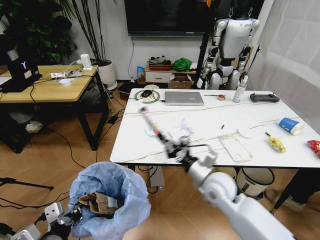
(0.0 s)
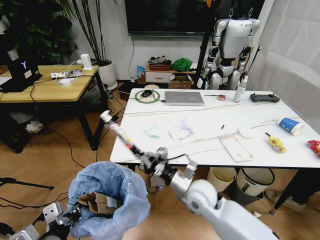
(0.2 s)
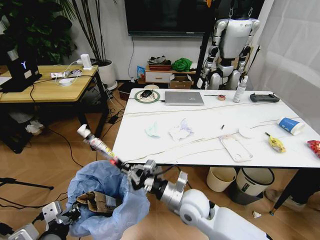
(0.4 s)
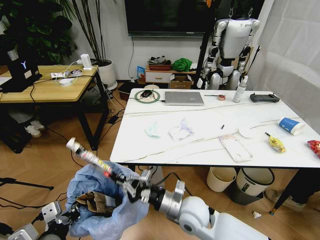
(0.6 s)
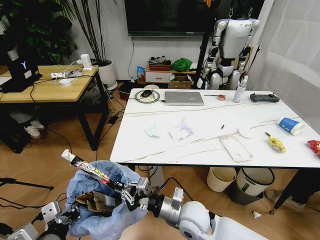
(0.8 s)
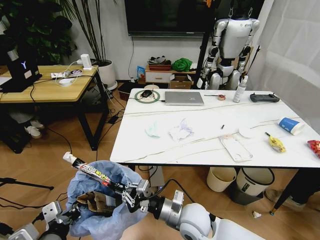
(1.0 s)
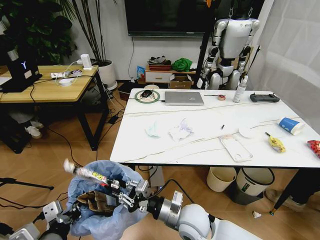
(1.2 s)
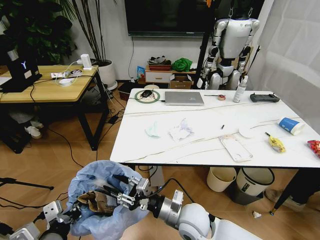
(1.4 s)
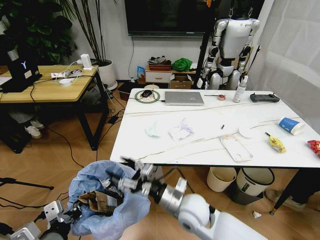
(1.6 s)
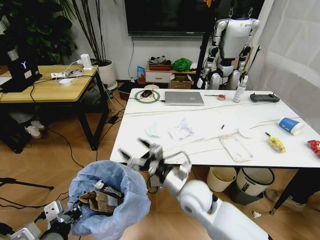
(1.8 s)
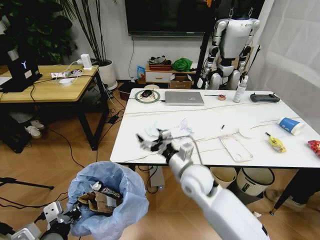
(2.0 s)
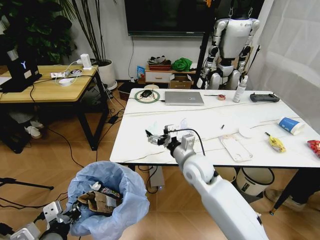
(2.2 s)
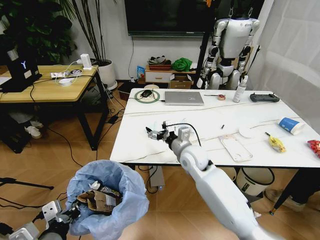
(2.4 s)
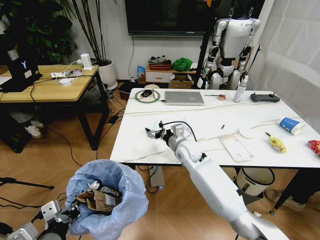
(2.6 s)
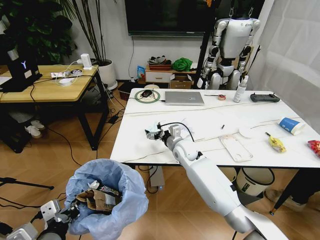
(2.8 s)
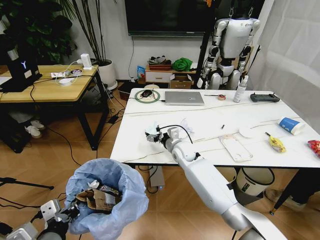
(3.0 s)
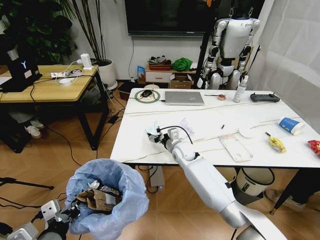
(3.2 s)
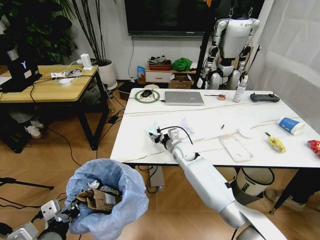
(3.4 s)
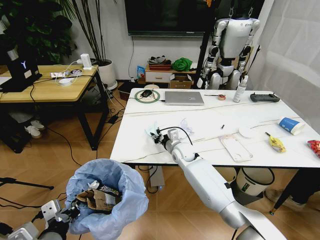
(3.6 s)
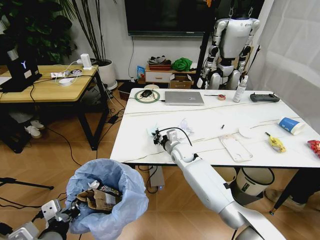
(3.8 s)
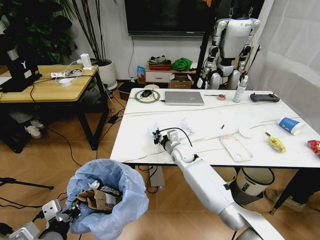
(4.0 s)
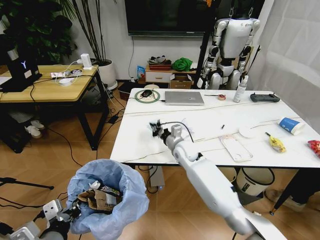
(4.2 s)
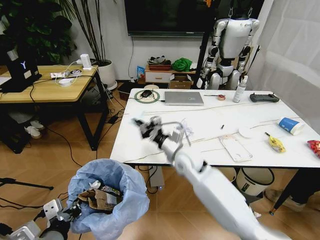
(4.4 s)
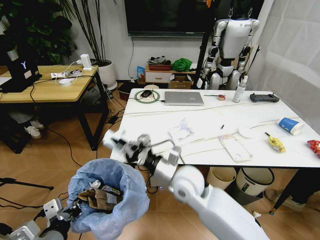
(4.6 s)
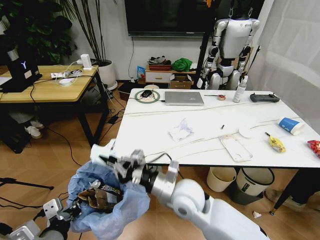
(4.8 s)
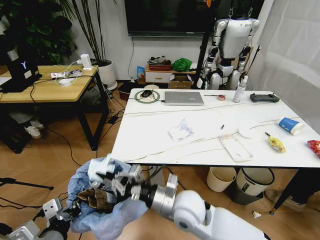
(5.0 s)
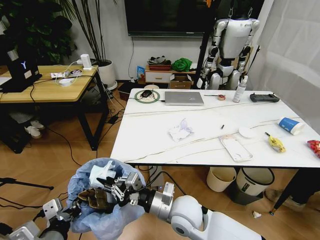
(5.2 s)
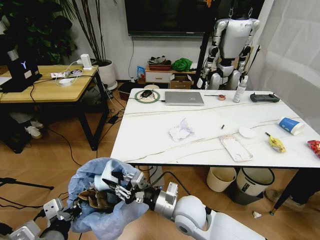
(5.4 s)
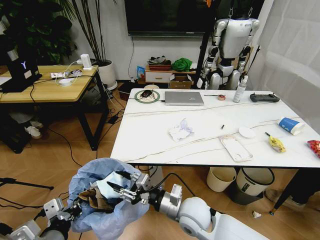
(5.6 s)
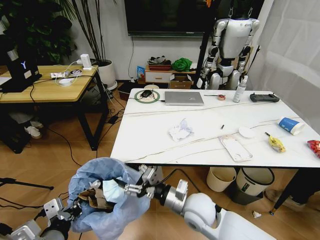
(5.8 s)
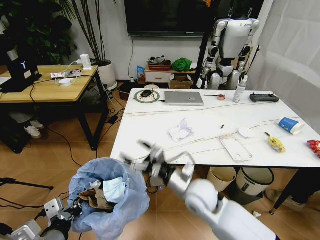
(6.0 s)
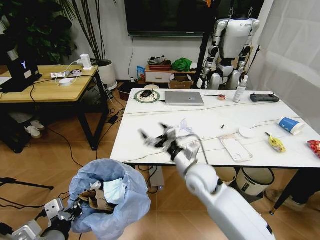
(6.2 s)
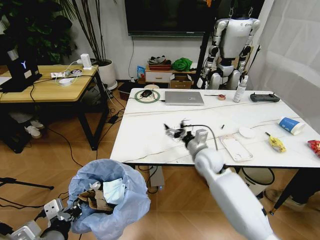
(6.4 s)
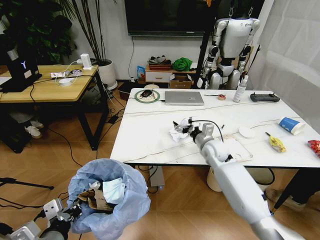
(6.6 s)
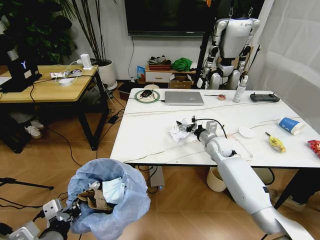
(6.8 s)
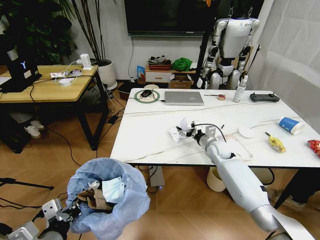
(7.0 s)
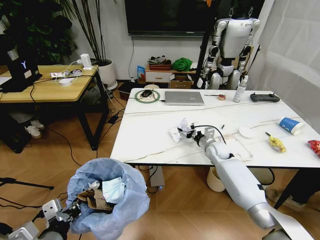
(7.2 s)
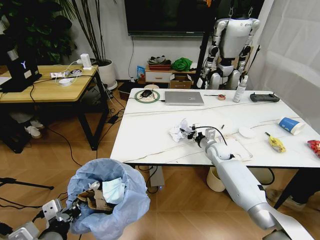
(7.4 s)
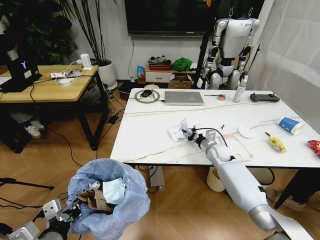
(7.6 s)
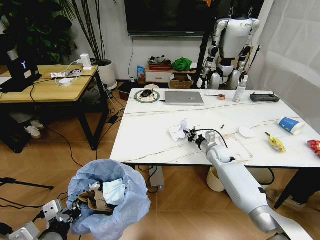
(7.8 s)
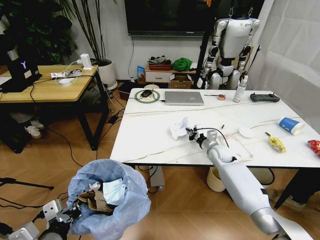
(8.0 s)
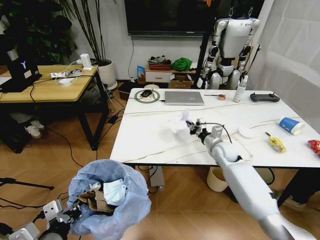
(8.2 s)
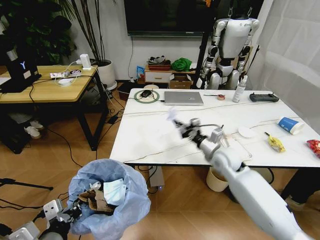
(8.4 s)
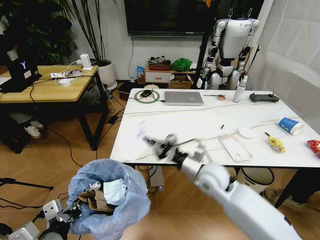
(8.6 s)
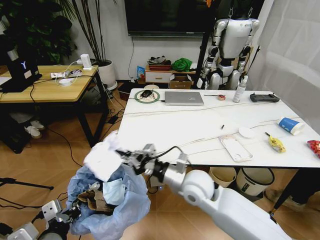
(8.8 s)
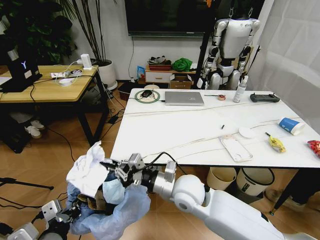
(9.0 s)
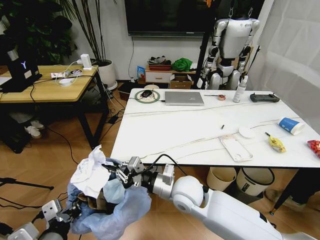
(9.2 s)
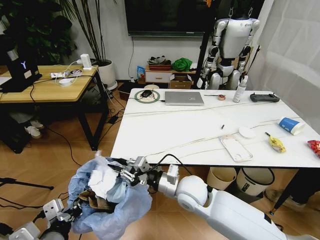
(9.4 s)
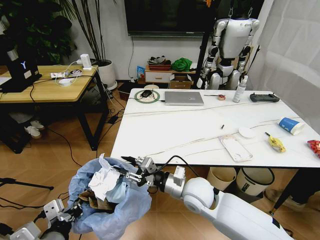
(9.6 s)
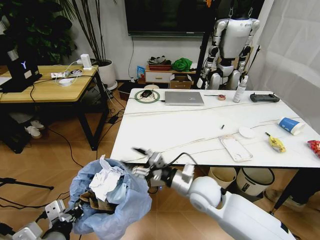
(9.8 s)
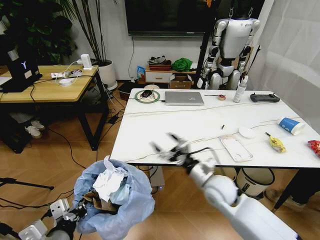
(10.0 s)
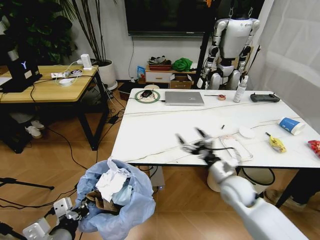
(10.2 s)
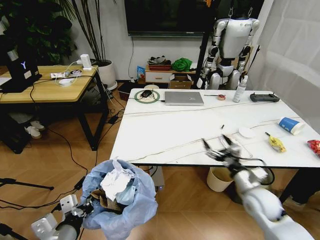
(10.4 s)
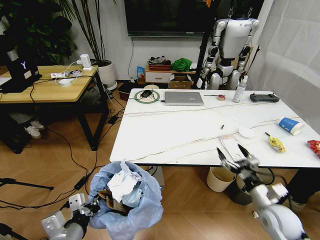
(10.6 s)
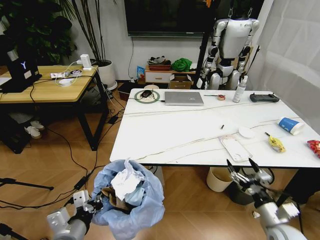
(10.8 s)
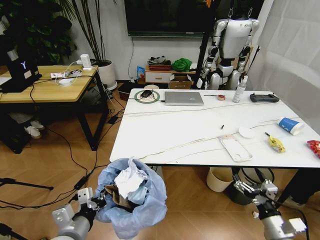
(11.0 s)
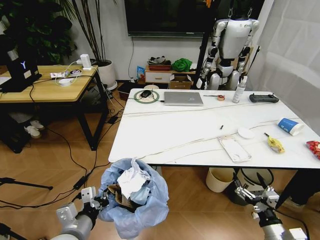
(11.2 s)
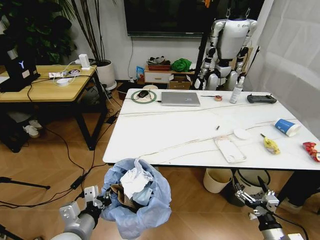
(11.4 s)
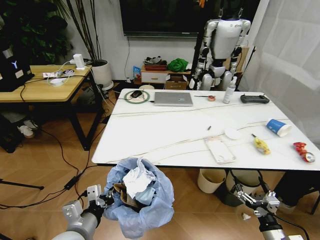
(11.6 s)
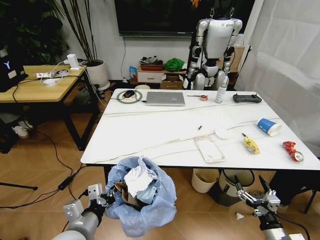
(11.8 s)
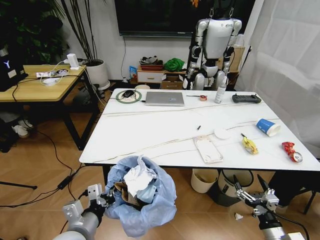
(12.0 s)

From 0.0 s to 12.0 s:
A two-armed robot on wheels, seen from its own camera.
Task of the whole recording: Pick up the trash bin and place the trash from the table into it.
From 0.0 s to 1.6 s: The right gripper moves to the left and backward, some 10 cm, and opens up.
From 1.6 s to 3.0 s: The right gripper travels forward by some 25 cm.
From 3.0 s to 4.4 s: The right gripper shifts some 10 cm backward and upward, and closes up.
From 4.4 s to 6.0 s: The right gripper moves backward, some 10 cm, and opens its fingers.
From 6.0 s to 7.6 s: The right gripper goes approximately 30 cm forward, to the right and downward, and closes its fingers.
From 7.6 s to 9.0 s: The right gripper shifts approximately 30 cm backward, to the left and upward, and closes its fingers.
From 9.0 s to 10.4 s: The right gripper moves to the right, about 25 cm, and opens up.
From 10.4 s to 12.0 s: The right gripper shifts roughly 20 cm backward and downward. Meanwhile the left gripper moves some 5 cm.

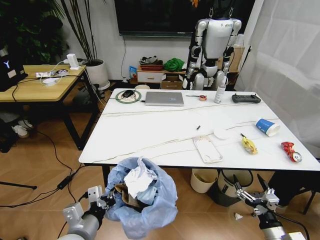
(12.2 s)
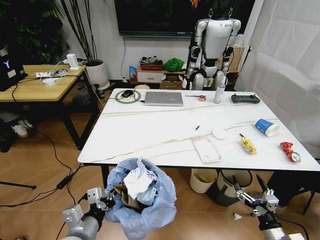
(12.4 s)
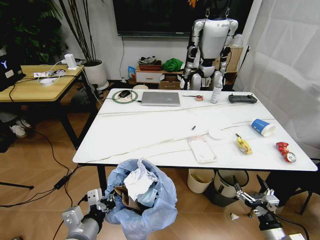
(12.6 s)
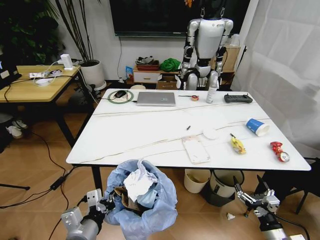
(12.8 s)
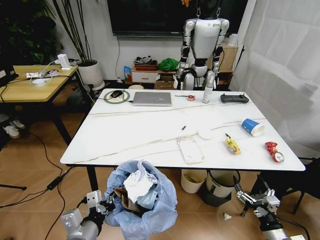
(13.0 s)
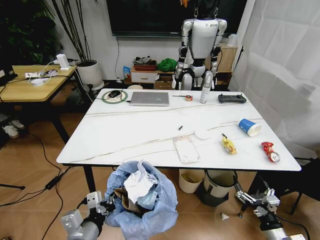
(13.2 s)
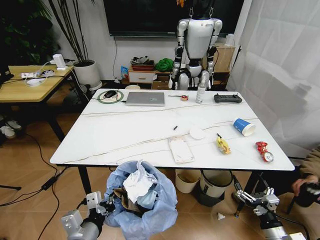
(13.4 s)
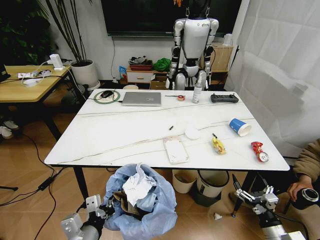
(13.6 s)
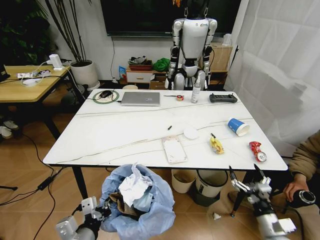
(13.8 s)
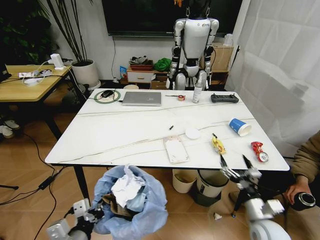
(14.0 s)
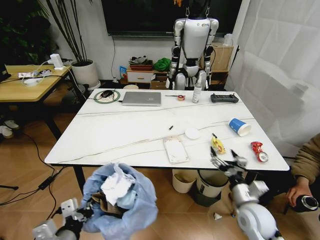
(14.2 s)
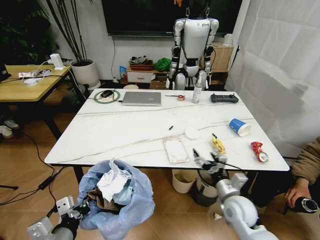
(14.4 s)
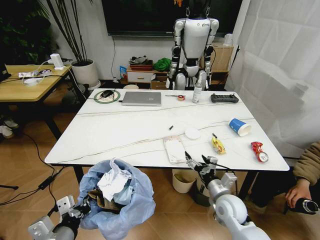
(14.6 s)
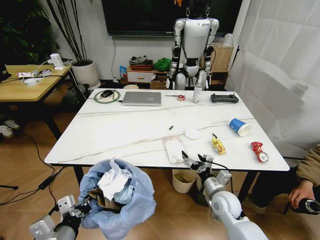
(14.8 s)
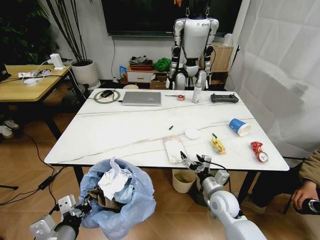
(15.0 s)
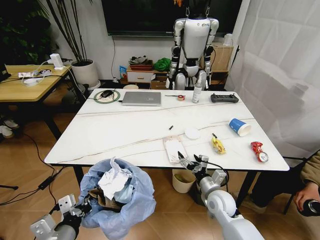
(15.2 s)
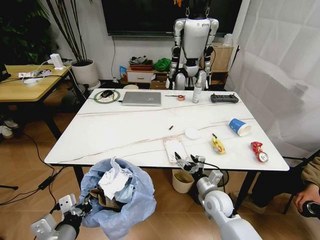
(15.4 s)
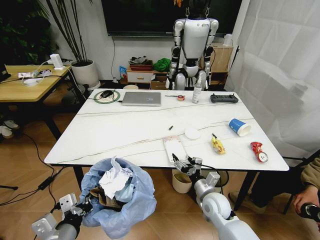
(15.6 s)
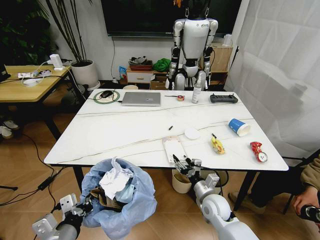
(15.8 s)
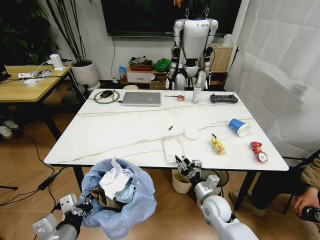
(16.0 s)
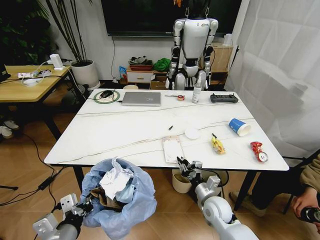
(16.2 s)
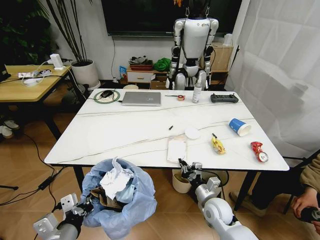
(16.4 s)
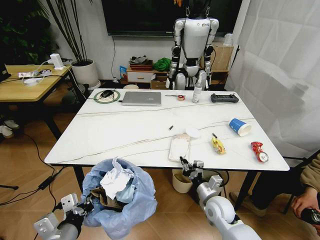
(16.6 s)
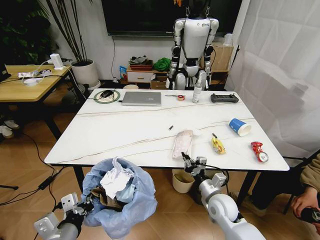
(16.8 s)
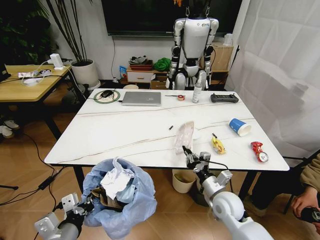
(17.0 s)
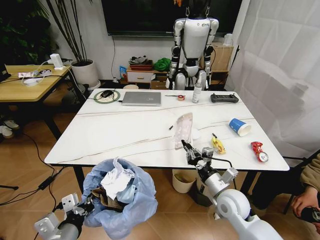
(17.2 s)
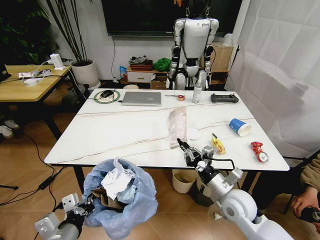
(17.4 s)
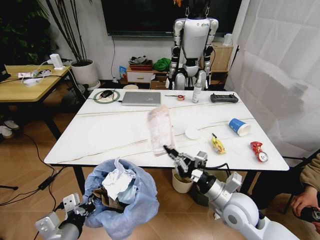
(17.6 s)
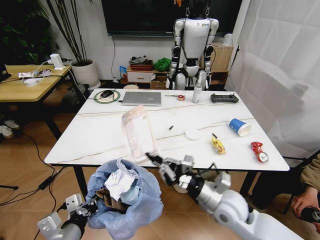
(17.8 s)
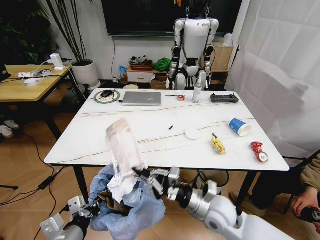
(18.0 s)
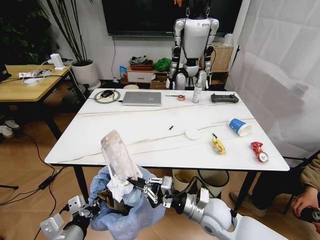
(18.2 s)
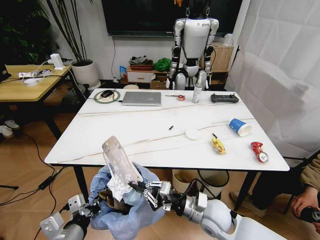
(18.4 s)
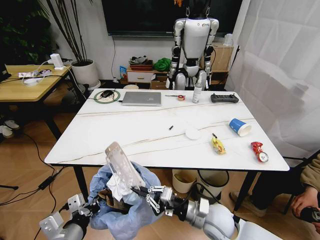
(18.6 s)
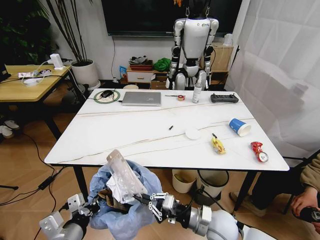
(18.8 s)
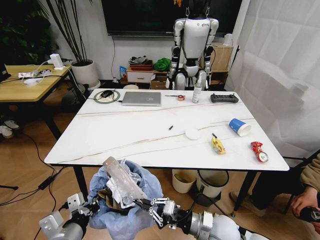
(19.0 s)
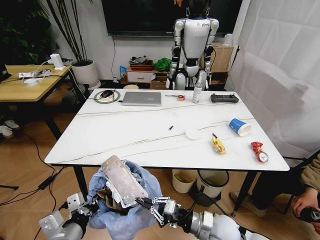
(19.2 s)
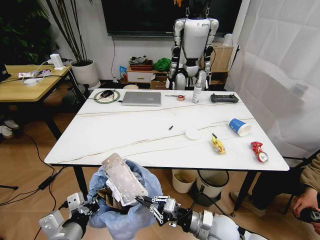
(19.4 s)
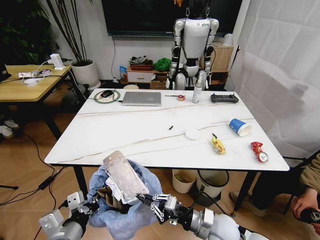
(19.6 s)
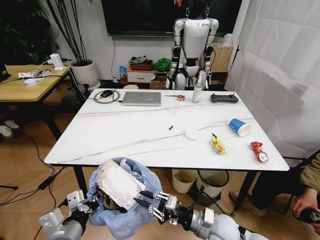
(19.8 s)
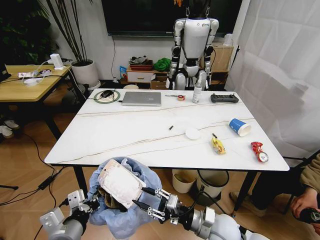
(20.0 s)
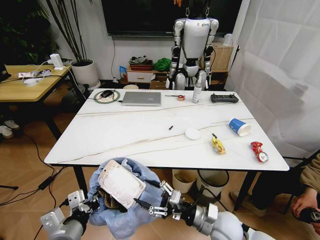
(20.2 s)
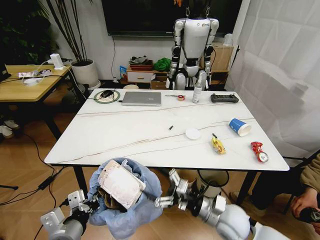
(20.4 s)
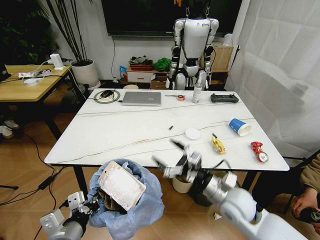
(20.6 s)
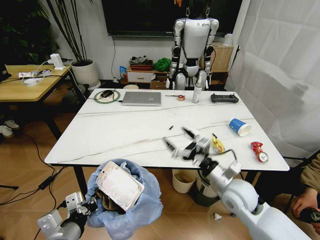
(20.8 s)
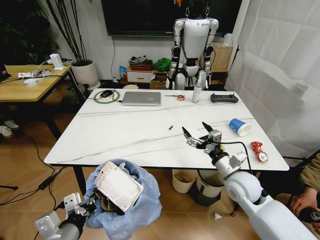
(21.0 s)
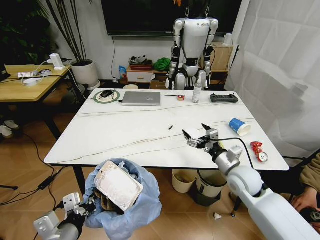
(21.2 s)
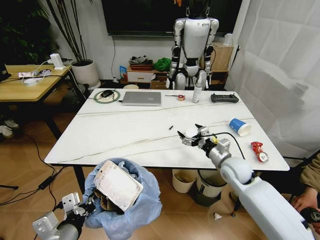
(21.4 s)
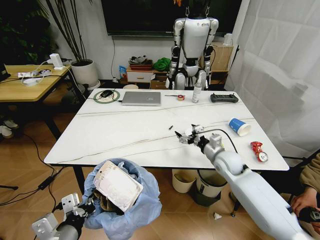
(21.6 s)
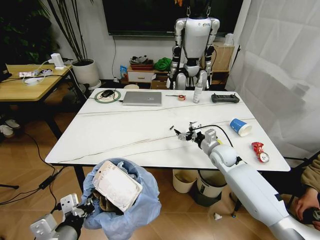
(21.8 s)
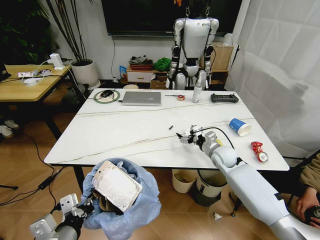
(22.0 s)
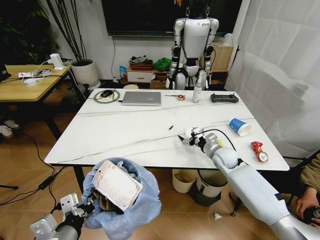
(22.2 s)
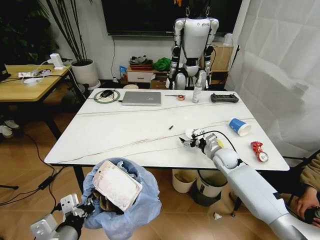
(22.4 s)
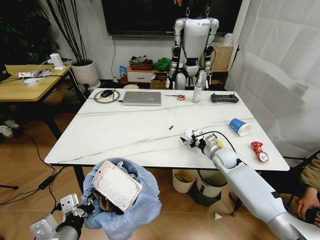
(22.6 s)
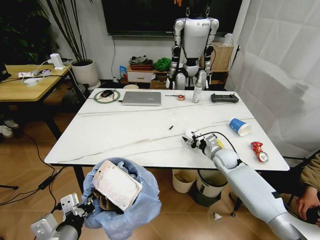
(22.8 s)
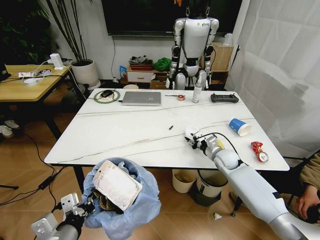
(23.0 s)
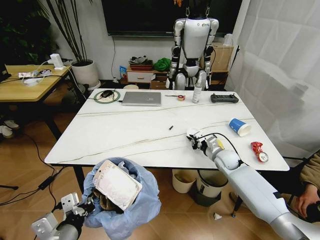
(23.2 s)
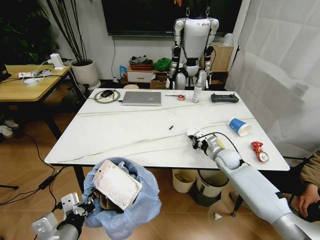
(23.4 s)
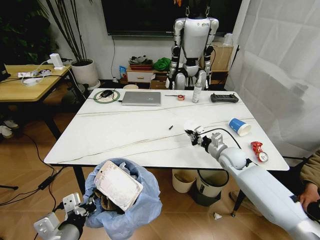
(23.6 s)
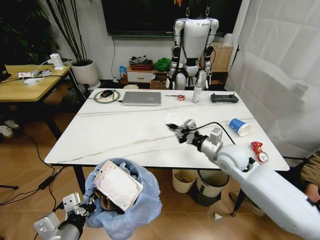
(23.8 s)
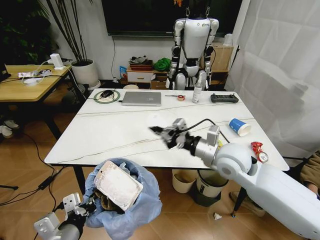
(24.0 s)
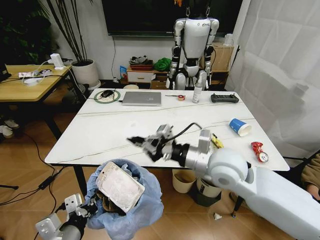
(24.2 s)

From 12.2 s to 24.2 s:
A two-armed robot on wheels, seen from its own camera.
Task of the whole recording: Pick up the trash bin and place the trash from the table into it.
From 13.8 s to 15.2 s: The right gripper shifts roughly 20 cm to the left and forward.
From 15.2 s to 16.6 s: The right gripper closes its fingers.
From 16.6 s to 18.2 s: The right gripper heads upward, covering roughly 10 cm.
From 18.2 s to 19.8 s: The right gripper changes place by some 5 cm.
From 19.8 s to 21.2 s: The right gripper is displaced forward, upward and to the right by approximately 20 cm, and opens its fingers.
From 21.2 s to 22.6 s: The right gripper shifts roughly 15 cm forward and downward.
From 22.6 s to 24.2 s: The right gripper is displaced upward, backward and to the left by approximately 30 cm, and closes up.
